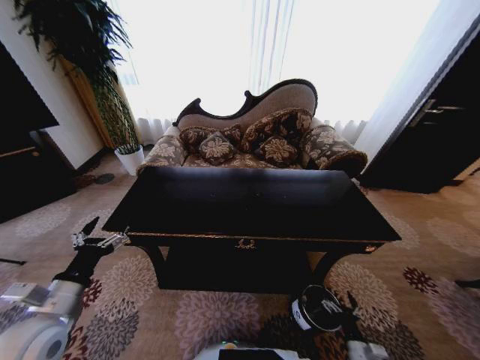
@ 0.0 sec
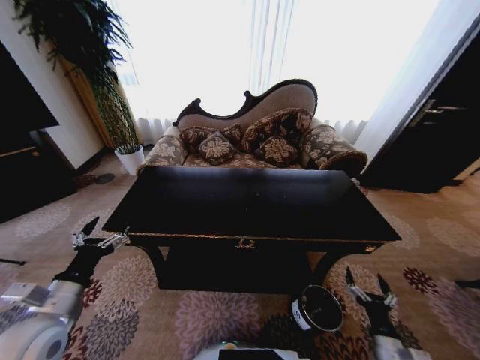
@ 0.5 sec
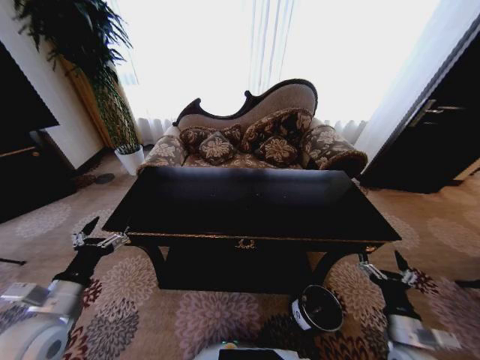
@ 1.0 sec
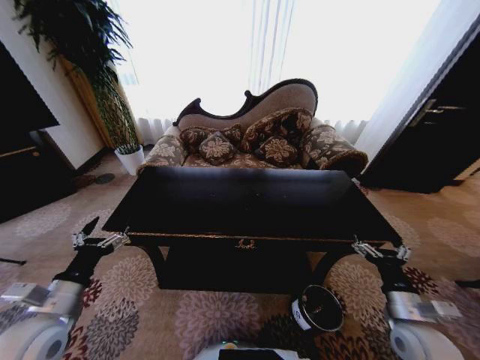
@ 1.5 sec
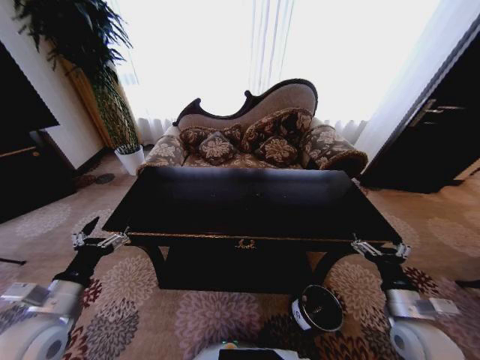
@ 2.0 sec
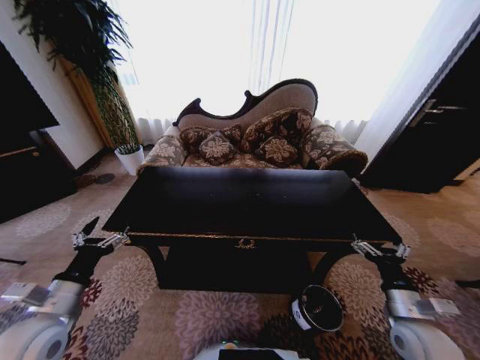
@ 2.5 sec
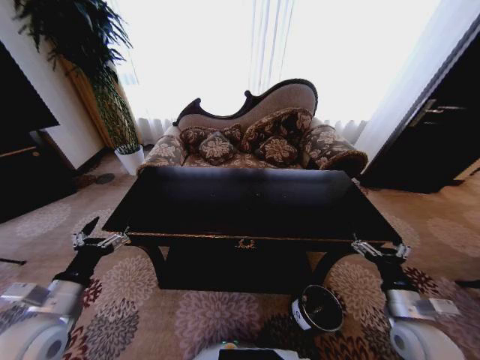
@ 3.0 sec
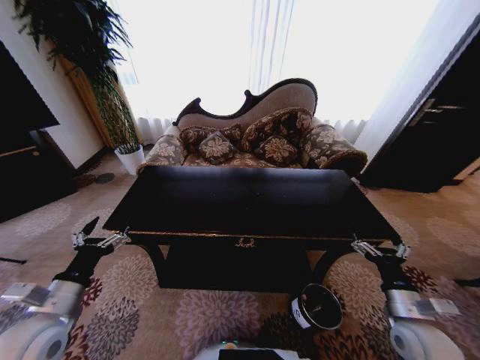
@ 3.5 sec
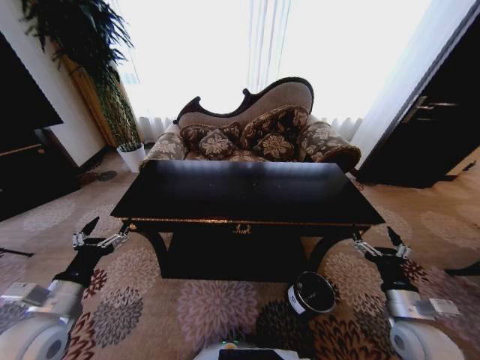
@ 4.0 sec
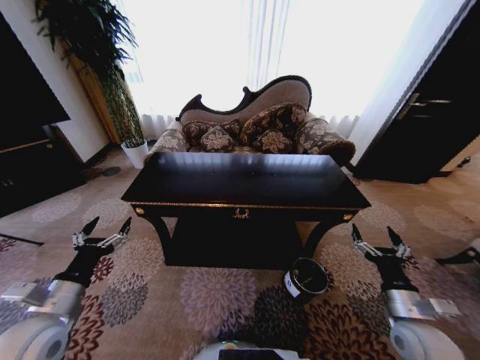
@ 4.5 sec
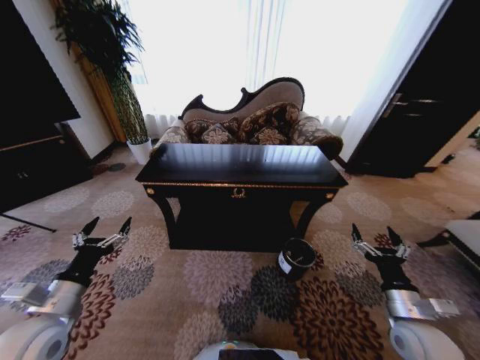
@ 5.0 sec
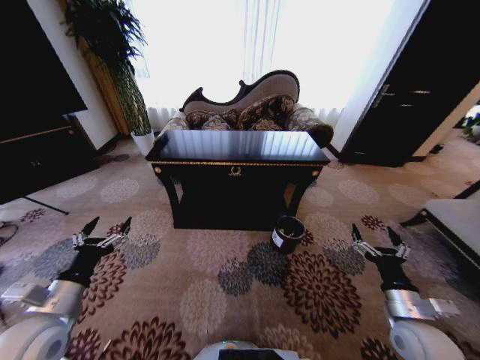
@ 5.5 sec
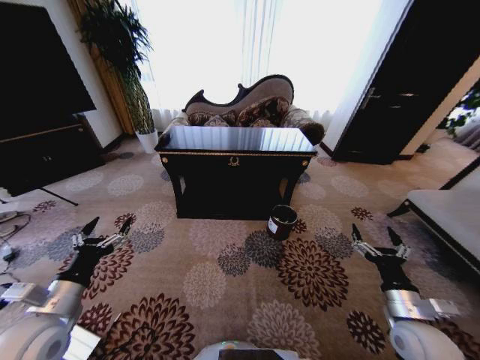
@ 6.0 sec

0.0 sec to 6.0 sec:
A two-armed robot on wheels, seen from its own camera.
Task of the whole recording: Move to the front of the table and place the trash on the table into the trash bin.
0.0 sec to 2.0 sec: The right gripper goes approximately 25 cm upward.
2.0 sec to 4.0 sec: Both grippers stay about where they are.
